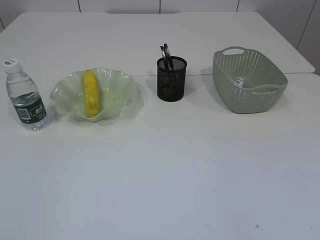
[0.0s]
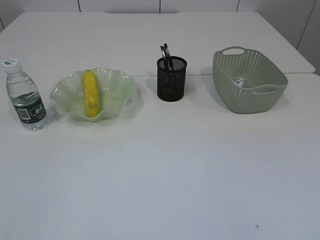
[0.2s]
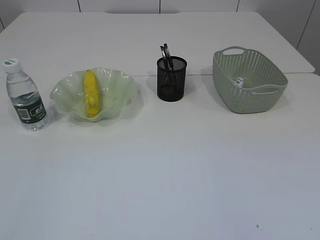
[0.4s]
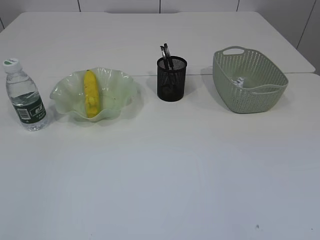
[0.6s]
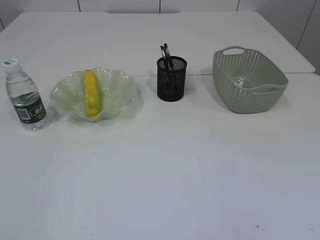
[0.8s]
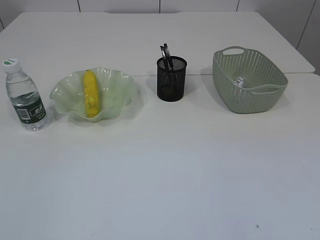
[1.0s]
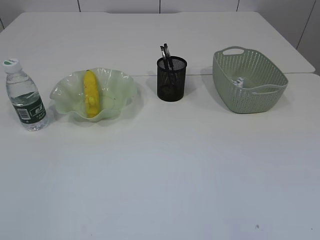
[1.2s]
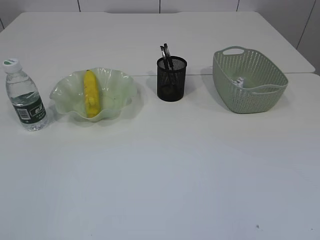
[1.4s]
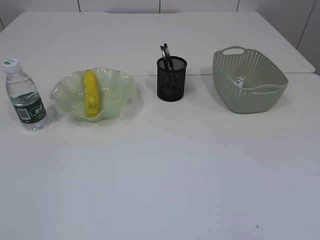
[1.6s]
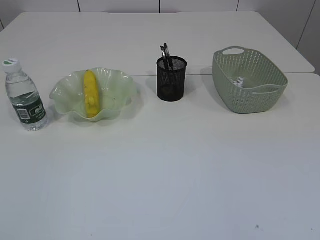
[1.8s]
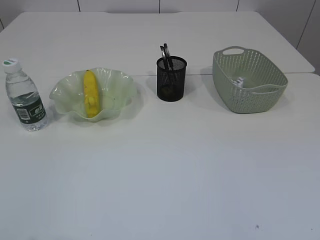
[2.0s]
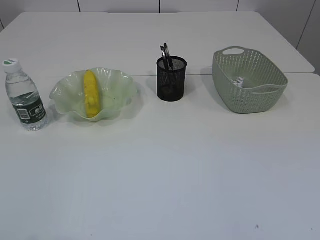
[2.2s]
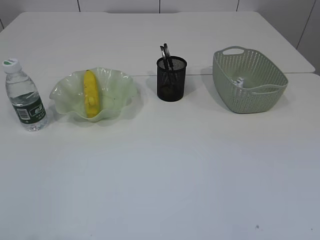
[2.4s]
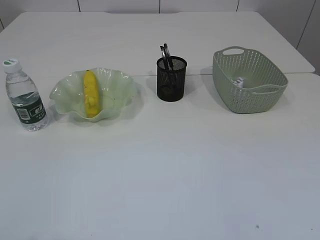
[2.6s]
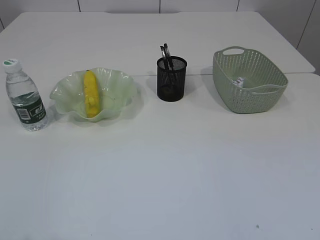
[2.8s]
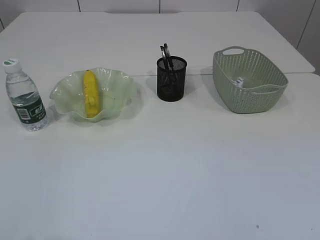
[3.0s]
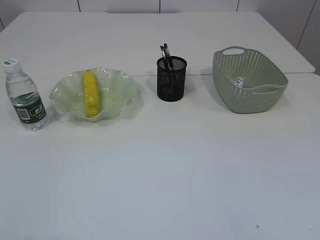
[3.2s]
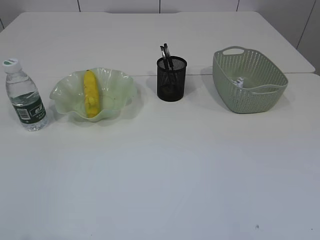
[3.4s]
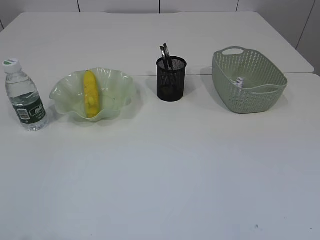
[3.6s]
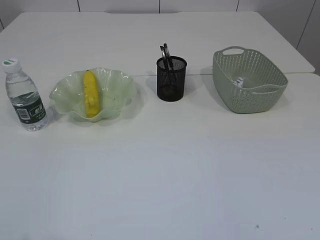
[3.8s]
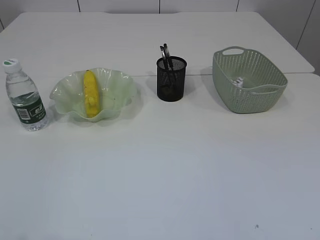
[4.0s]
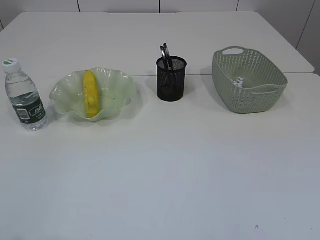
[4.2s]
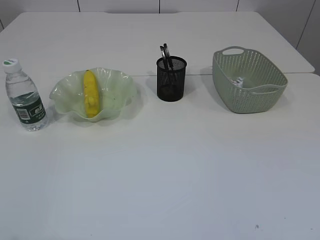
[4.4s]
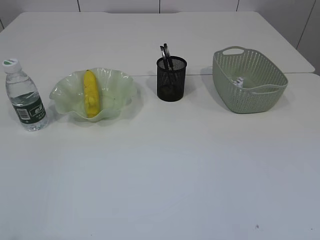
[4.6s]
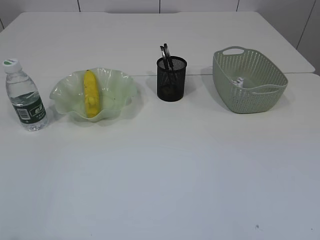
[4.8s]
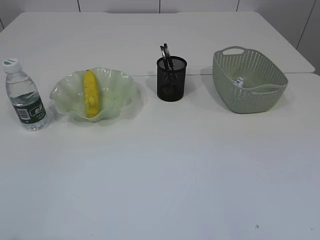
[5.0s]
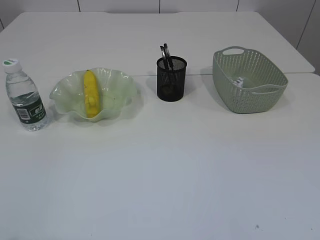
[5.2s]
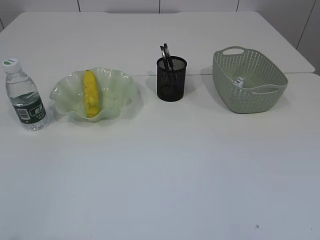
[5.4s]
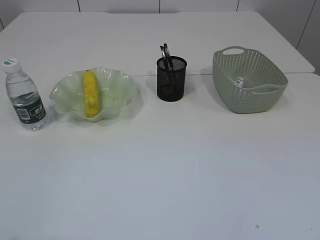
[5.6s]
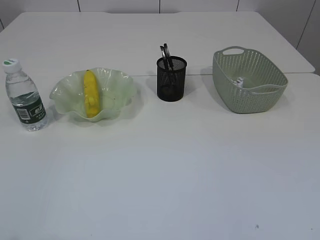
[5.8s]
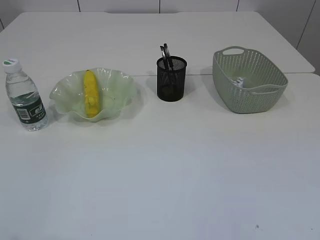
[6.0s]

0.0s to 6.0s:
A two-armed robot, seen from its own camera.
4.4s to 6.0s: The two grippers keep their place.

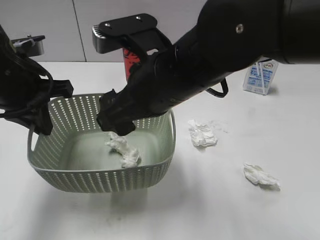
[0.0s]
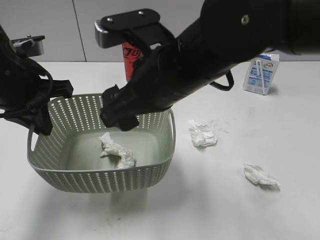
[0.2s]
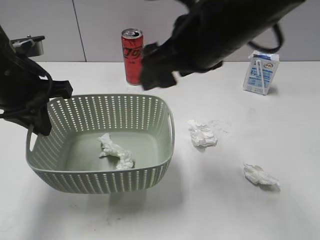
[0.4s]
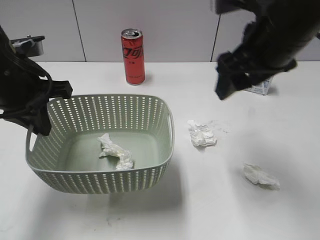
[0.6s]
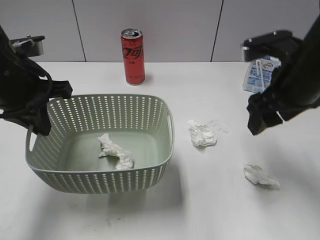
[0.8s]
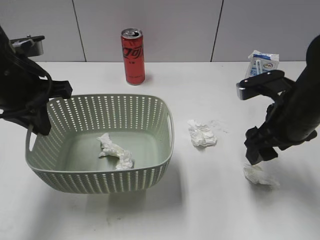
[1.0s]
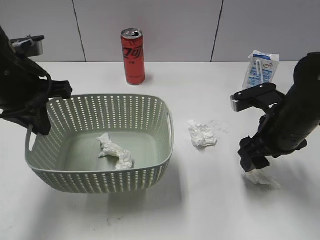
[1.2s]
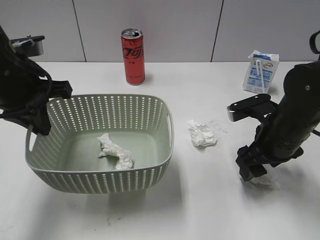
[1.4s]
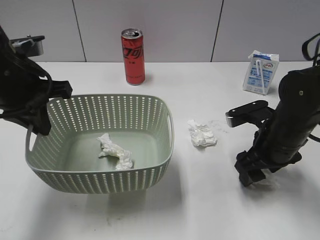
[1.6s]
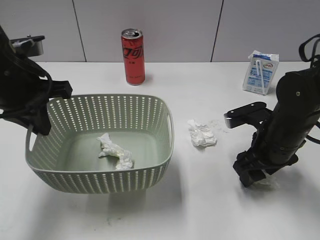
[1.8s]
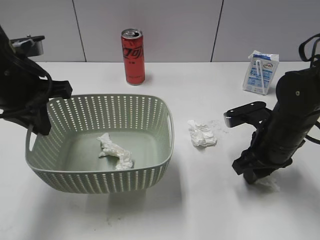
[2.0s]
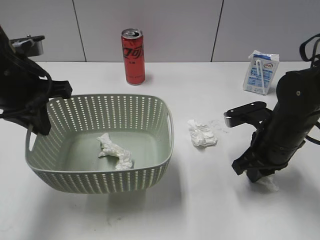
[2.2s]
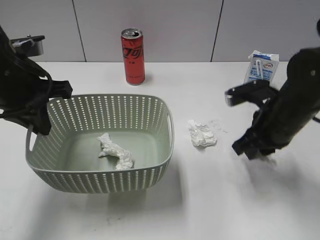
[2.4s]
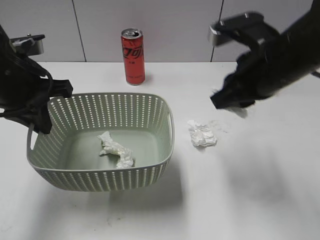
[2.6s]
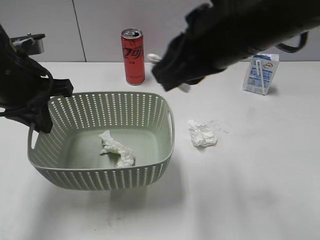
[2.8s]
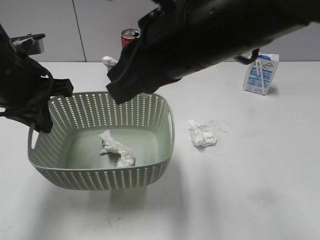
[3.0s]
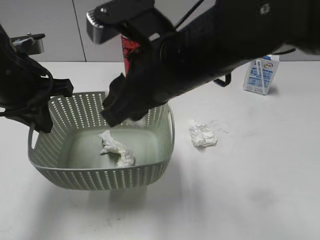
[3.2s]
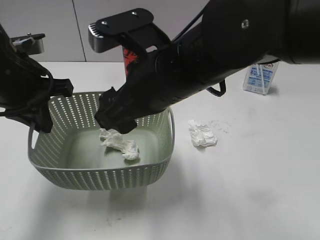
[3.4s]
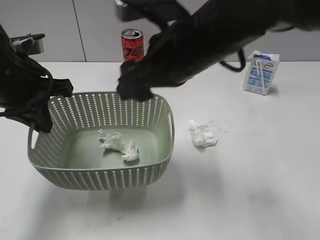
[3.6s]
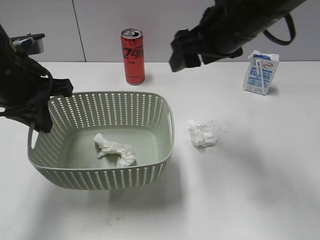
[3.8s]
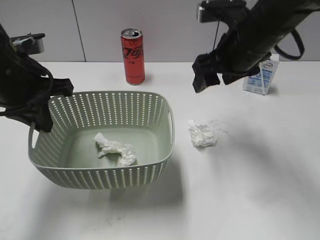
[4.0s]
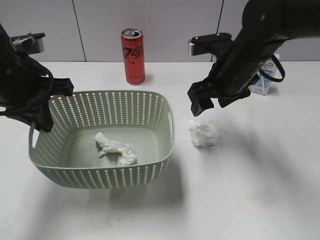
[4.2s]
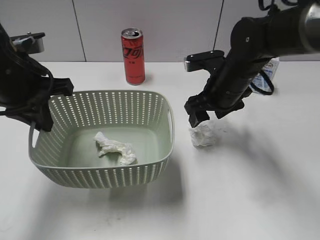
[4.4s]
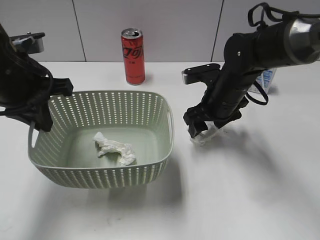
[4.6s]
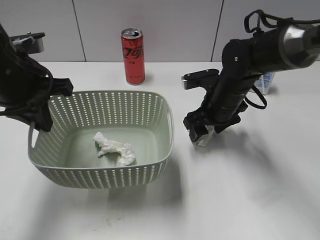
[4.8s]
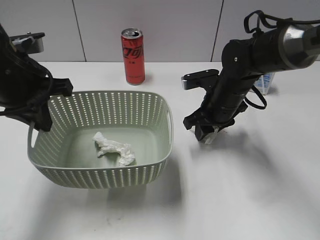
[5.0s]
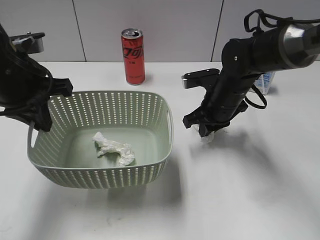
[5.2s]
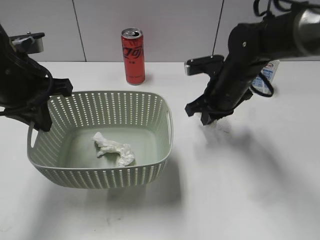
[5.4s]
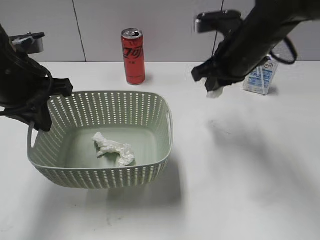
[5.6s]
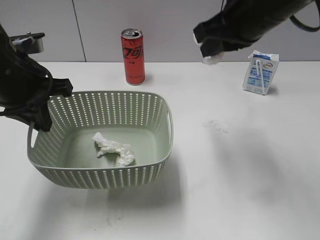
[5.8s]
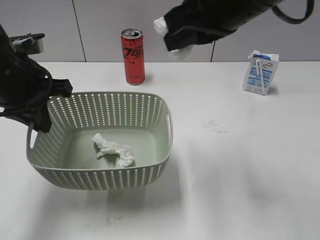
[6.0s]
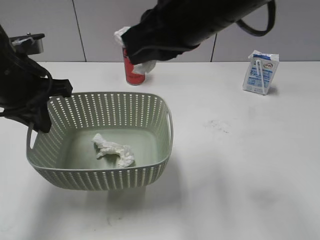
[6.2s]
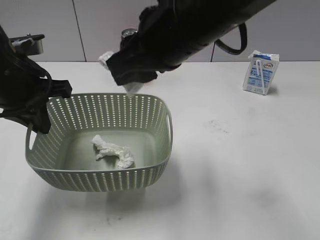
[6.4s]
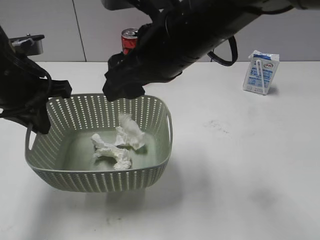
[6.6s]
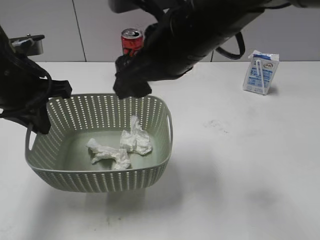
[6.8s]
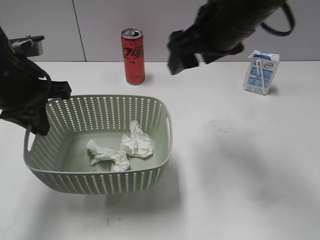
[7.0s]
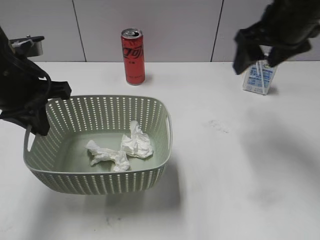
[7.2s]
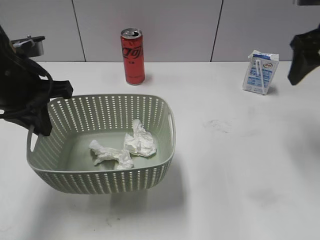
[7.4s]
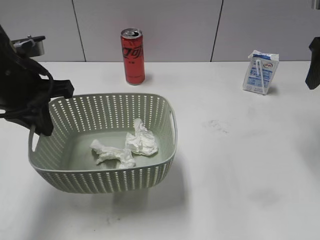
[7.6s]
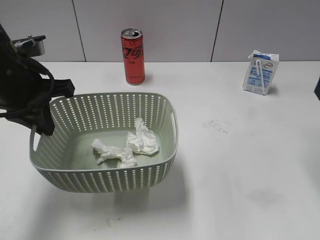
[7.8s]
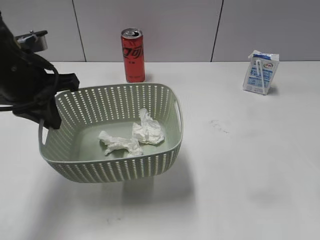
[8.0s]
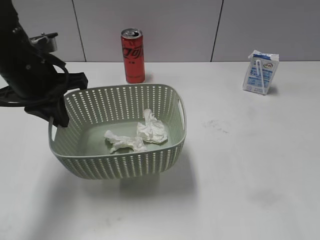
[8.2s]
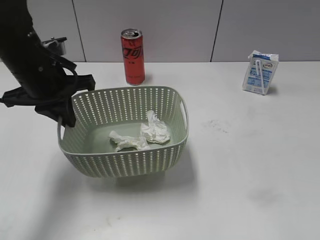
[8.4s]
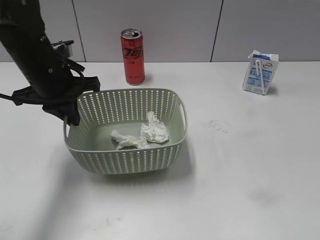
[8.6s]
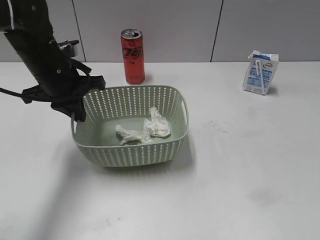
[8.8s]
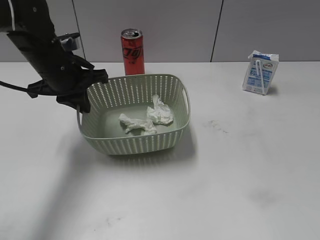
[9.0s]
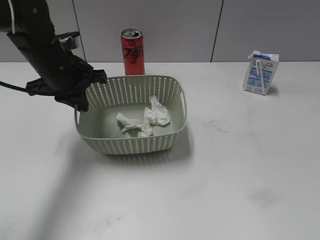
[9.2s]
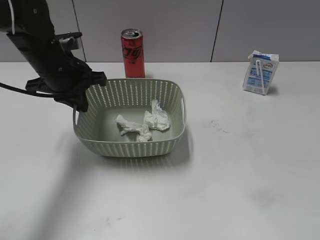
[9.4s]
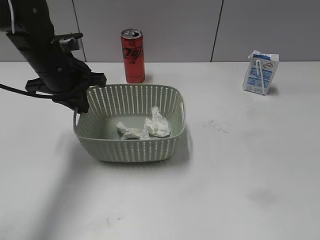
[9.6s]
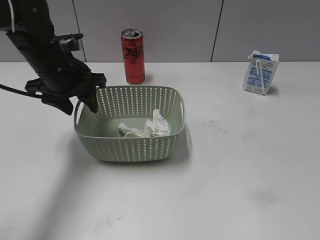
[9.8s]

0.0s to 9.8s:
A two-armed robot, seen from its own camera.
Step, 0.4s to 2.2s: Grasp the waste paper with right gripper.
Step, 2.4s to 3.6s: Place the waste paper in the basket with right gripper.
Step, 3.8s to 5.2s: Grasp the waste paper with right gripper.
Step, 5.4s to 6.8s: Place the waste paper in the basket with right gripper.
0.0s to 1.4s: The right gripper goes about 20 cm to the right and downward.
1.4s to 2.8s: The right gripper heads upward and to the left, covering approximately 20 cm, and closes.
2.8s to 4.2s: The right gripper travels forward and downward by some 15 cm, and opens.
4.2s to 5.6s: The right gripper goes downward and returns, about 10 cm each way, and closes its fingers.
5.6s to 7.0s: The right gripper moves upward, some 5 cm, and opens its fingers.
7.0s to 8.4s: The right gripper travels backward and to the right by about 30 cm.
8.4s to 9.8s: The right gripper shifts roughly 10 cm backward; the left gripper shifts by about 5 cm, and opens its fingers.

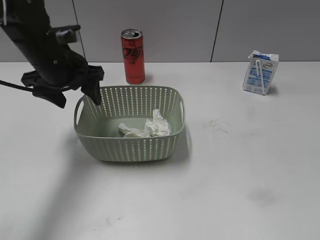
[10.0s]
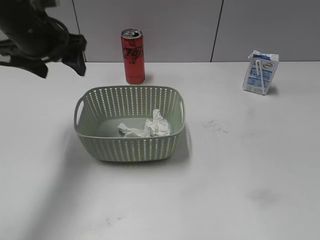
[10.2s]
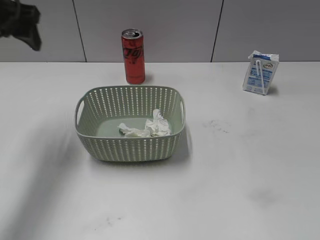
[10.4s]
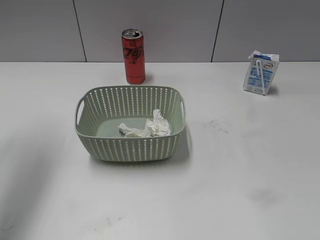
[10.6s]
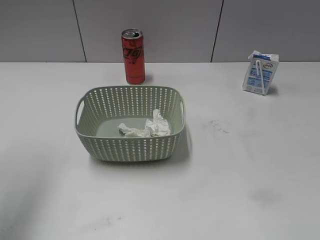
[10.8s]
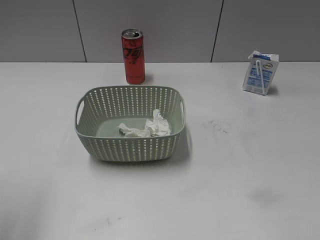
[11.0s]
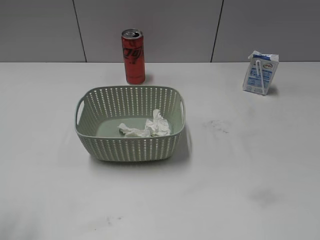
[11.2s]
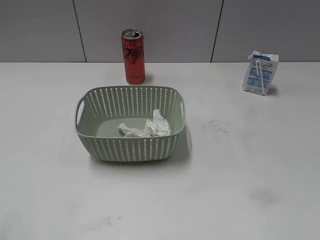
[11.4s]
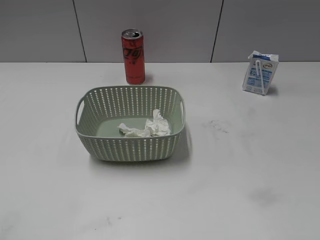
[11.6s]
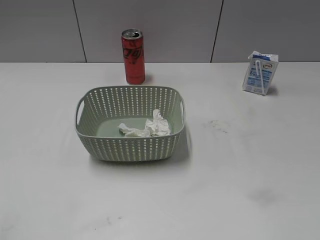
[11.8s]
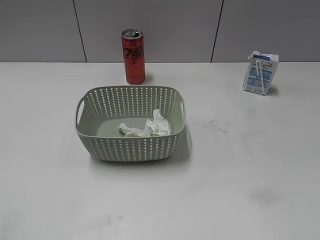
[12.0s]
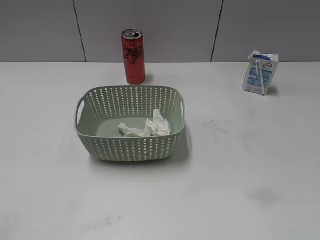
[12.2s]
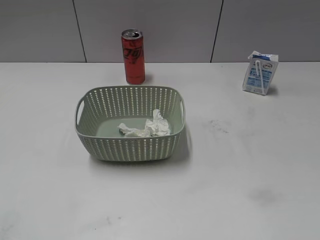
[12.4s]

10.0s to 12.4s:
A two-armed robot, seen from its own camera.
10.0s to 11.2s: The left gripper is displaced backward, upward and to the left by roughly 30 cm.
